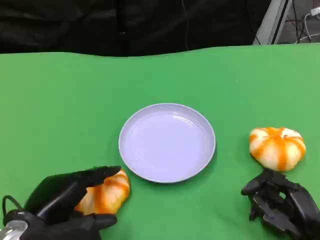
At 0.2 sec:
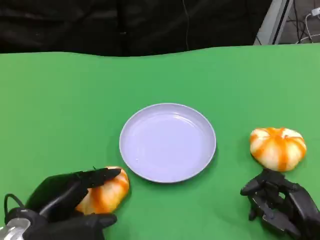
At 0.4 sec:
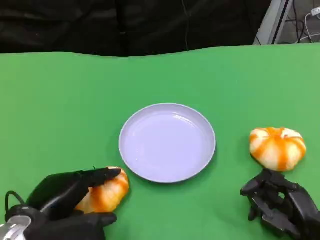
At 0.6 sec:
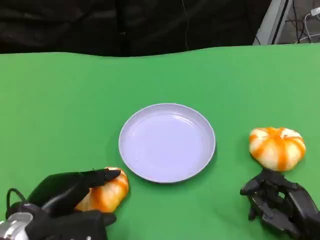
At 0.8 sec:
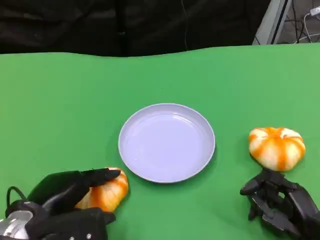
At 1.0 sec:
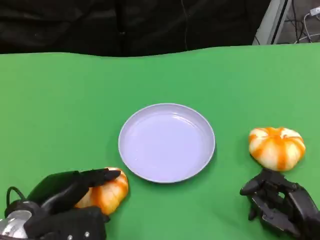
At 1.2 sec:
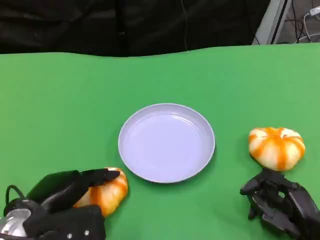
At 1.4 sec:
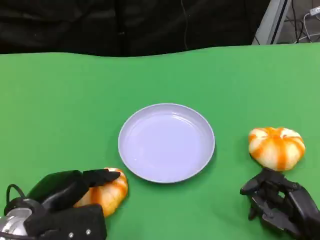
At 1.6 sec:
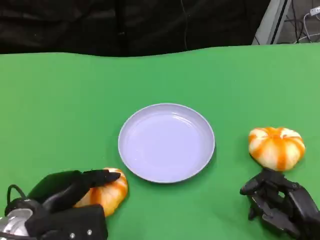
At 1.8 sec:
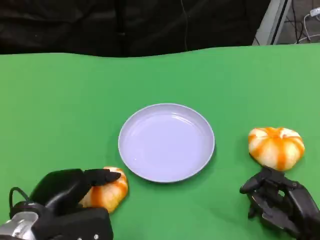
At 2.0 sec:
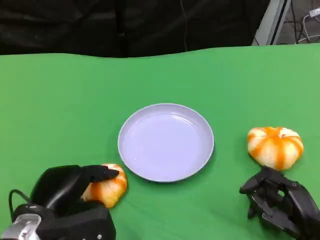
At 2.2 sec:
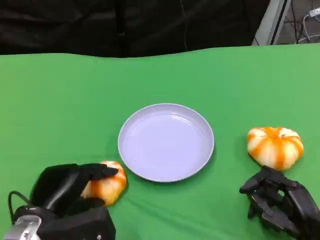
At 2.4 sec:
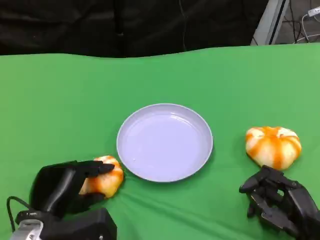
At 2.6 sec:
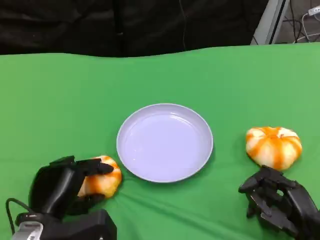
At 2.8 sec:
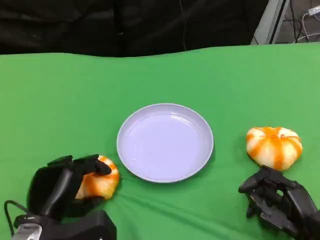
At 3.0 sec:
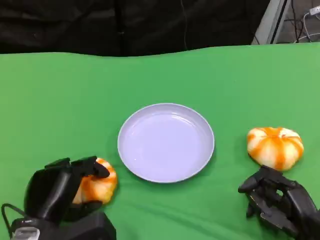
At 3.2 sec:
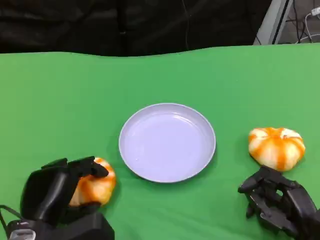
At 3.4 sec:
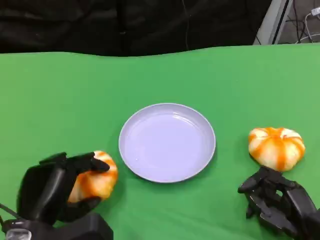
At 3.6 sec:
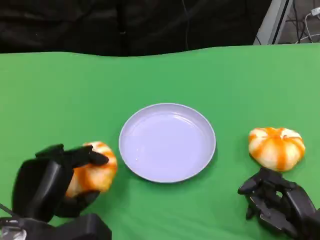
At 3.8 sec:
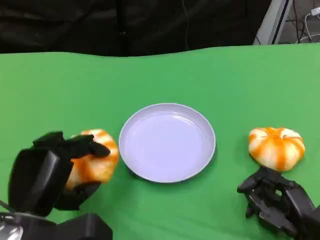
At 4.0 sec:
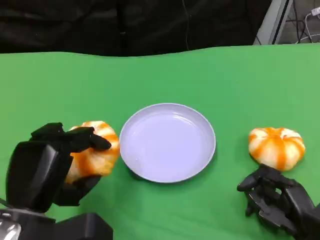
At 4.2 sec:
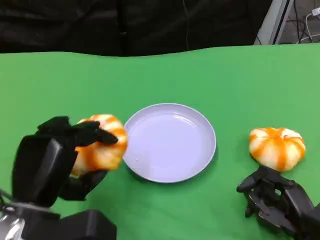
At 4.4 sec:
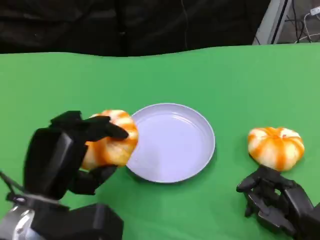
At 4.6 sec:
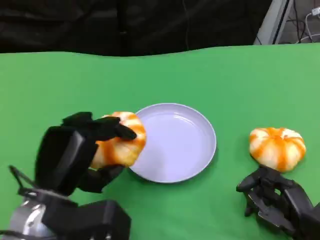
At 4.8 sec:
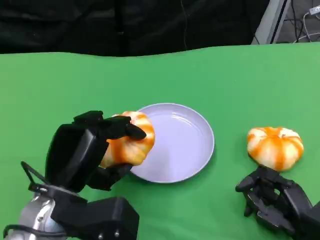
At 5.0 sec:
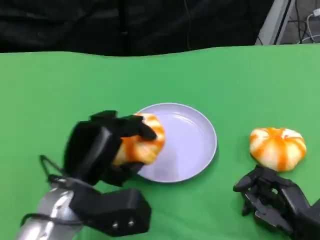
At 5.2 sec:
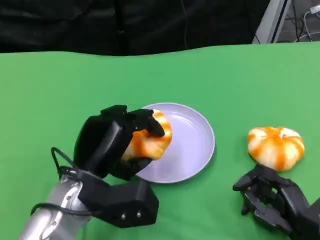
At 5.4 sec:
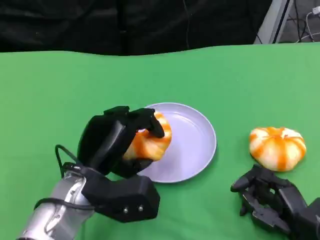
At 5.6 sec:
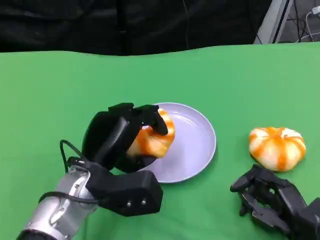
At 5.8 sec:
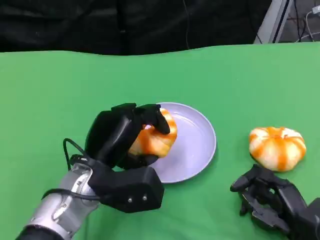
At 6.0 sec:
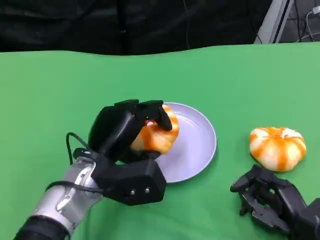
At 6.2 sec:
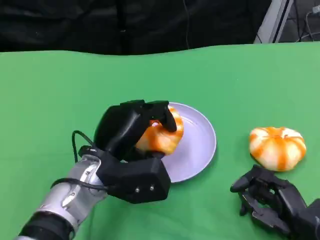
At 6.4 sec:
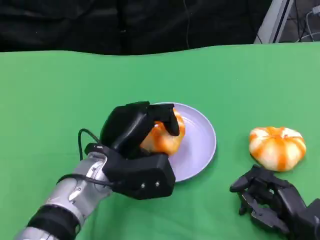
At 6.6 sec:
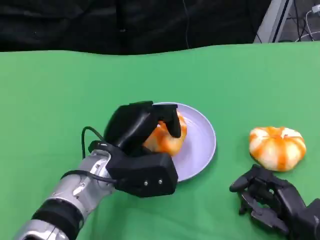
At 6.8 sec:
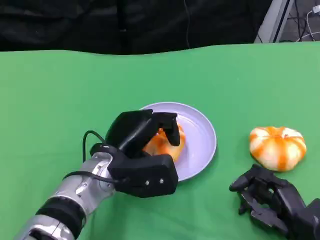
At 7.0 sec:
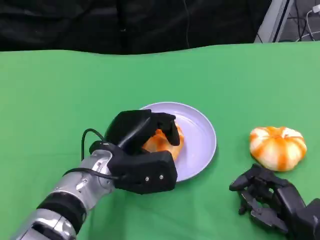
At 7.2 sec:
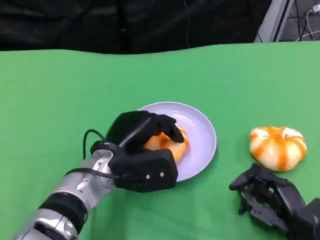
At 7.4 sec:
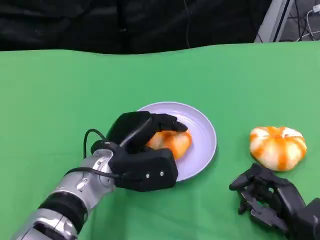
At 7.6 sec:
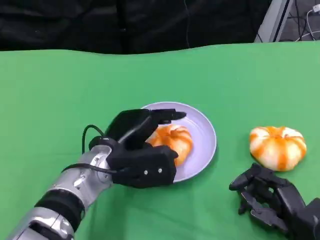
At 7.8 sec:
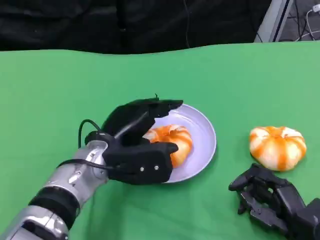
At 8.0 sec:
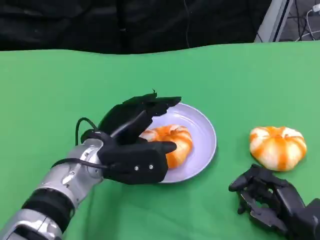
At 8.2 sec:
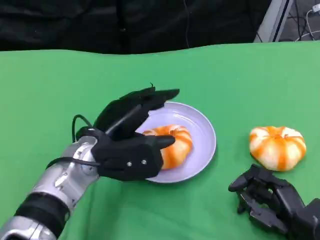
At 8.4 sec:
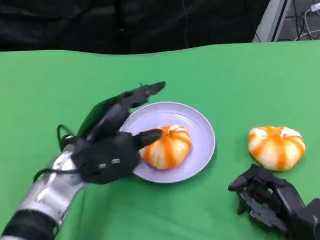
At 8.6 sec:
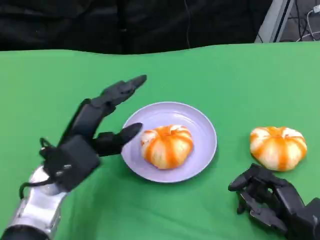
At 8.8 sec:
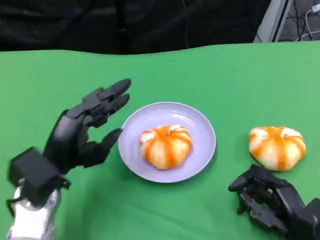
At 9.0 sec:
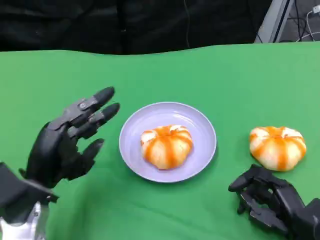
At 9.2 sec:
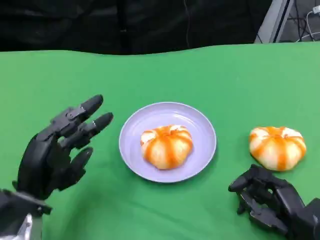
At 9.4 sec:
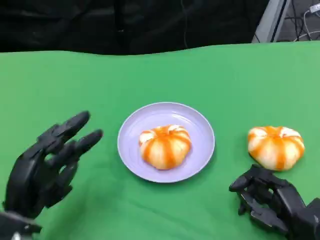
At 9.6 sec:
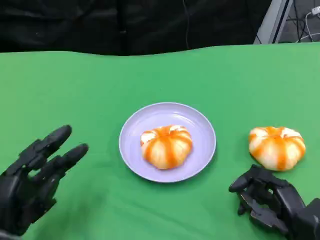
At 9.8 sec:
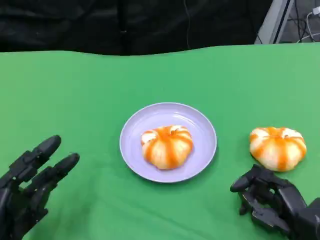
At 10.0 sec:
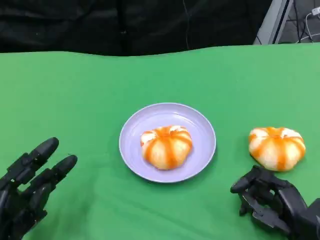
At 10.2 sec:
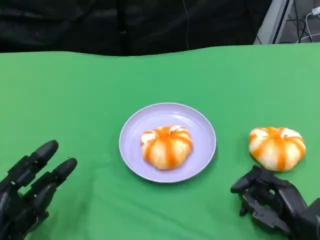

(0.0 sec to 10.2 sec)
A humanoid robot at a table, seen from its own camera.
Task of the whole recording: Grasp the bread from the table and place it into the plate.
0.0 sec - 1.4 sec: There are only small adjustments of the hands.
3.0 sec - 4.4 sec: The left hand travels upward by approximately 5 cm.
4.4 sec - 5.8 sec: The left hand is displaced forward and to the right by approximately 10 cm.
5.8 sec - 7.2 sec: The hands make only small movements.
7.2 sec - 8.8 sec: The left hand shifts some 10 cm to the left.
8.8 sec - 10.2 sec: The left hand moves backward, downward and to the left, approximately 10 cm.

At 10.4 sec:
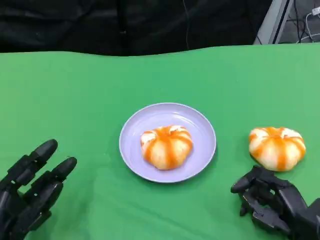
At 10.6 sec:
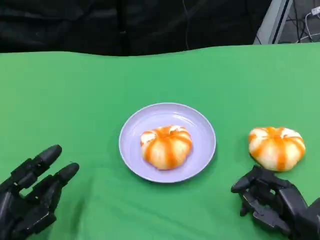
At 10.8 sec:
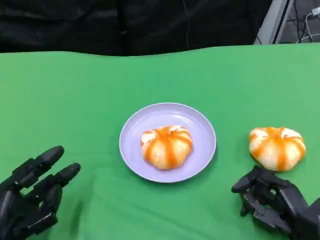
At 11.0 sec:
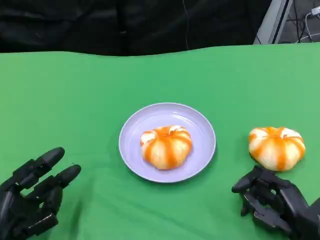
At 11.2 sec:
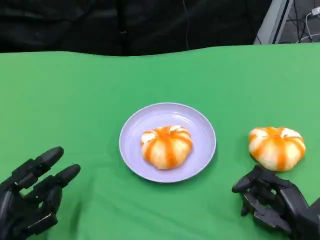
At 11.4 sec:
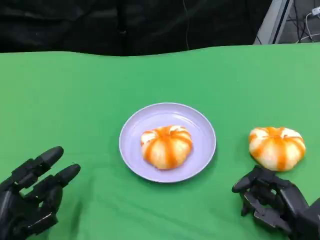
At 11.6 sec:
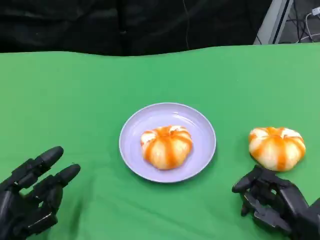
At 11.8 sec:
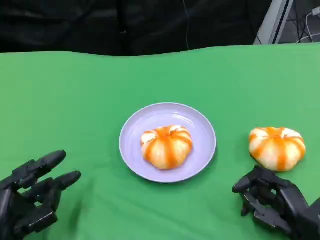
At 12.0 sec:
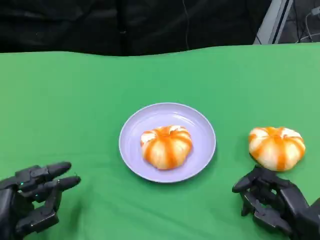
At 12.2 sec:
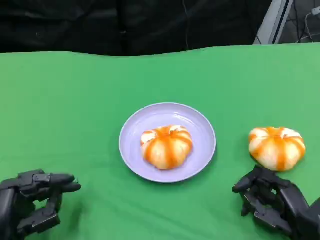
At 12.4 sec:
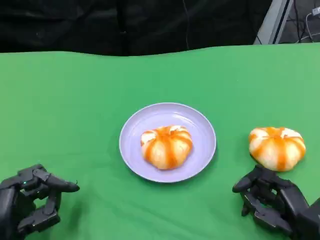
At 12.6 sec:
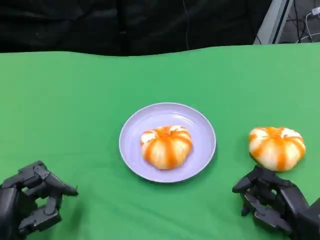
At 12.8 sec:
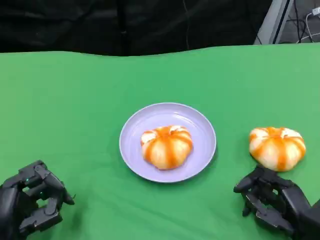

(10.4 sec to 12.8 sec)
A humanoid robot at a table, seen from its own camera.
Task of the whole recording: Grasp the bread from the table and place it into the plate.
10.4 sec - 11.6 sec: The two hands keep their place.
11.6 sec - 12.8 sec: There are only small adjustments of the hands.
